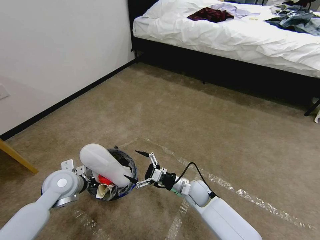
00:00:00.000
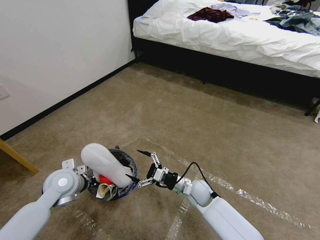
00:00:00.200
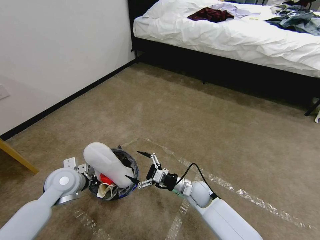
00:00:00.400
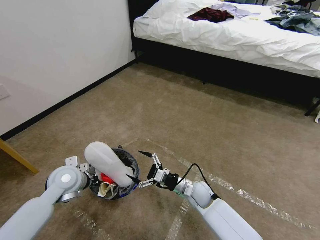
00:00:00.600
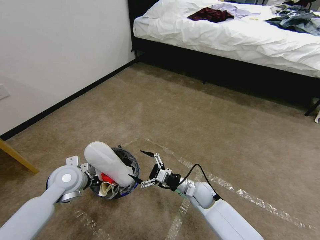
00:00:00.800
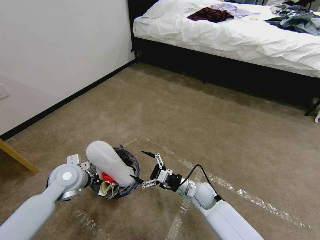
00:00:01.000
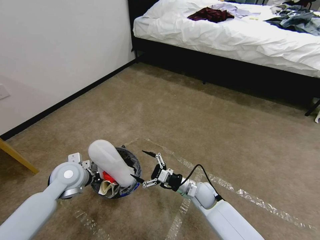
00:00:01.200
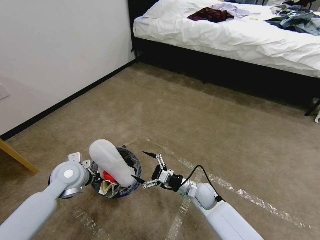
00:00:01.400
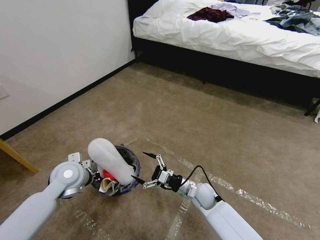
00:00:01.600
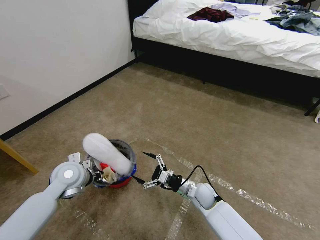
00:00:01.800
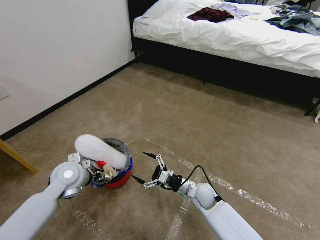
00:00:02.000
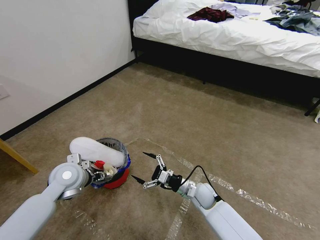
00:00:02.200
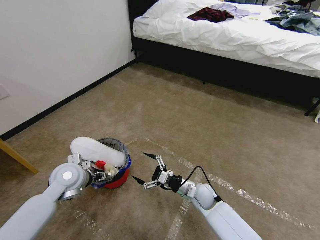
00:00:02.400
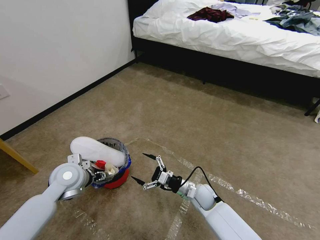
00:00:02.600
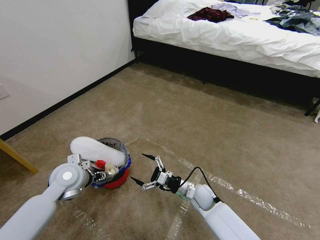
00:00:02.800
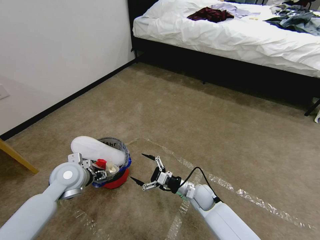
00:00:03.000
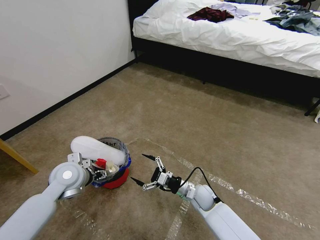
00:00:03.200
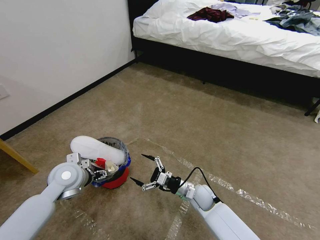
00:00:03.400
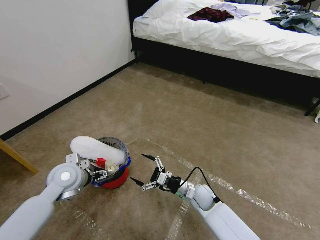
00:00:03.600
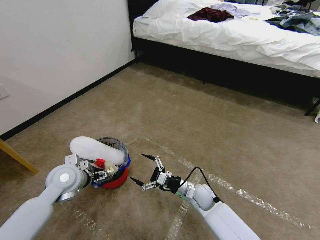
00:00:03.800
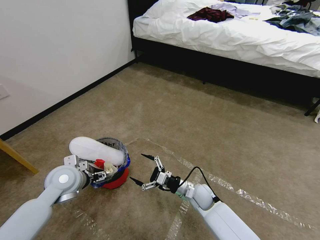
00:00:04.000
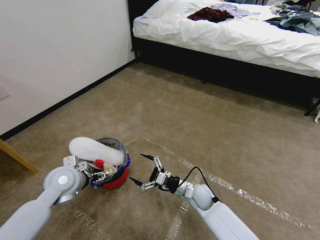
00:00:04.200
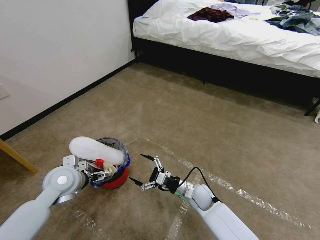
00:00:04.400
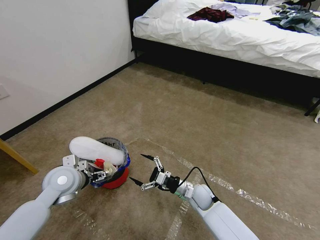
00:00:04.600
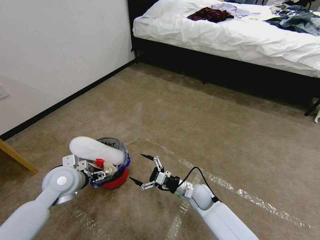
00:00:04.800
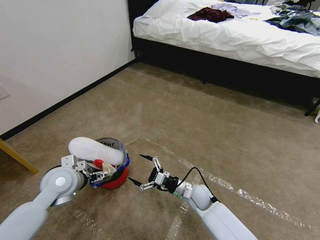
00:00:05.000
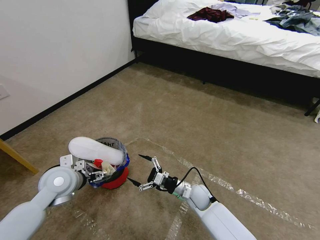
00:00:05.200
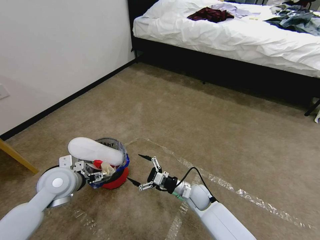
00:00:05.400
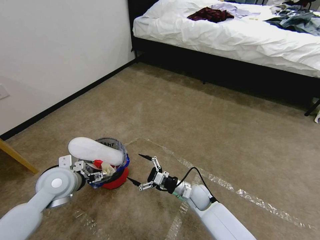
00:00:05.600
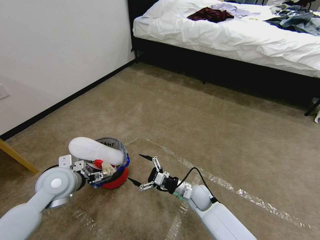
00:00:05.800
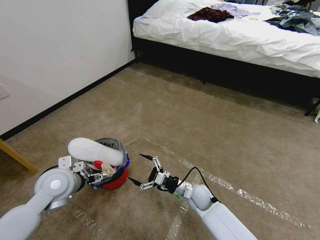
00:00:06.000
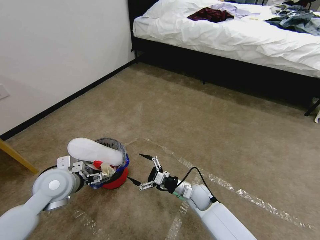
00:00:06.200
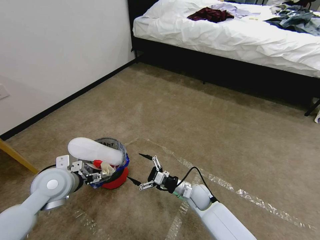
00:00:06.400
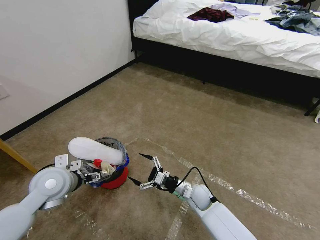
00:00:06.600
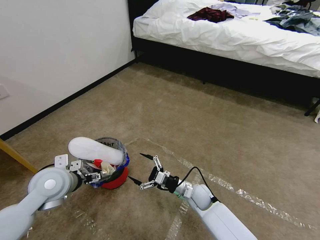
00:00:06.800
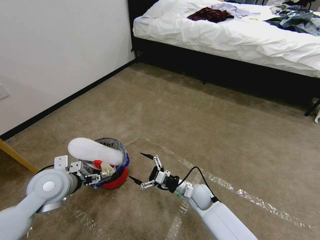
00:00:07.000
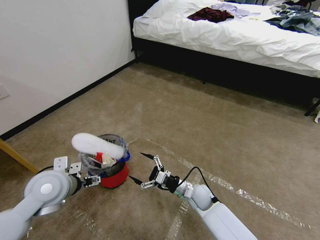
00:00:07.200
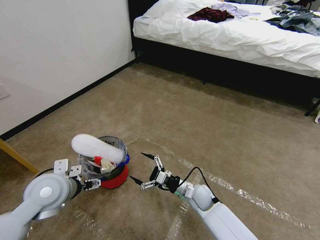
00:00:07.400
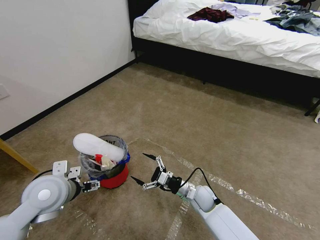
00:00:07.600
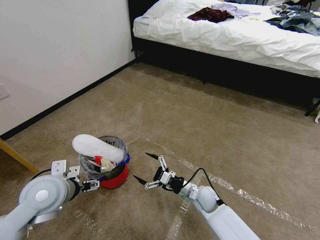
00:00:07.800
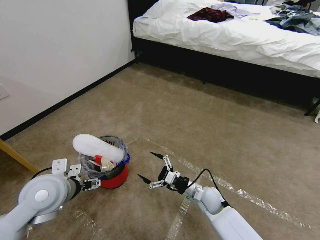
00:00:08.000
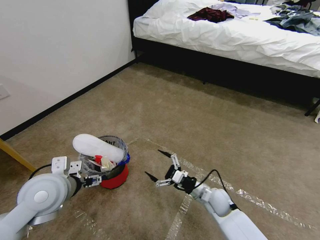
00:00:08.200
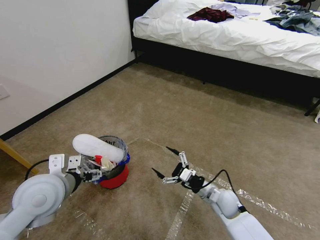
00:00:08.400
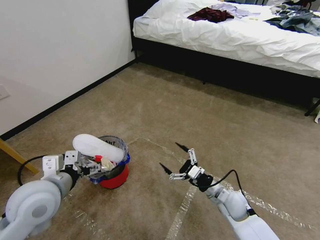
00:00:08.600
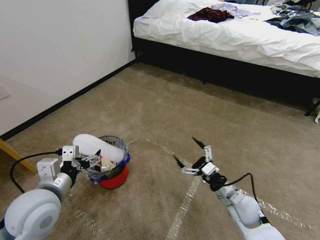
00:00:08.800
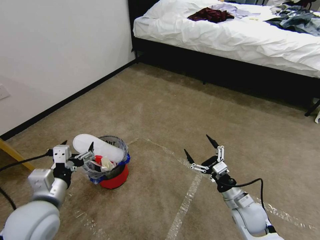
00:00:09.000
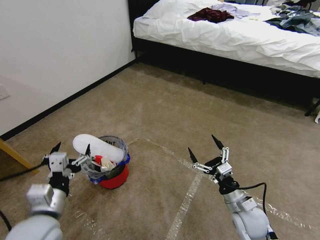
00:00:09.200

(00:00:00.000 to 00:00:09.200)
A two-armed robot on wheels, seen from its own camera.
Task of the whole recording: Pick up the trash bin and place the garbage on the floor into it.
00:00:00.000 - 00:00:01.600: The grippers make only small movements.
00:00:01.600 - 00:00:03.000: The left gripper opens.
00:00:03.000 - 00:00:06.200: The grippers move only a little.
00:00:06.200 - 00:00:07.600: There are only small adjustments of the grippers.
00:00:07.600 - 00:00:09.200: The left gripper travels backward by about 10 cm, while the right gripper heads to the right, backward and upward, covering roughly 15 cm.

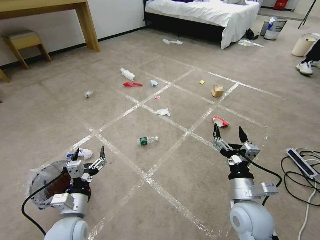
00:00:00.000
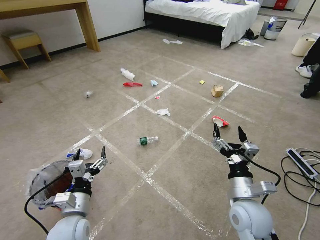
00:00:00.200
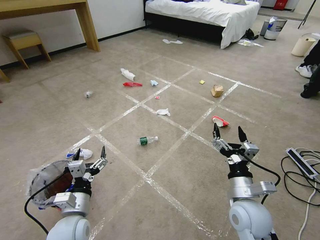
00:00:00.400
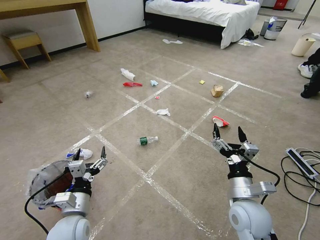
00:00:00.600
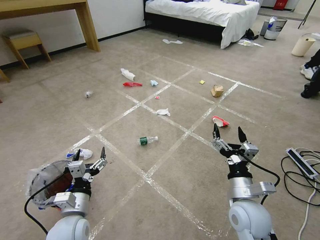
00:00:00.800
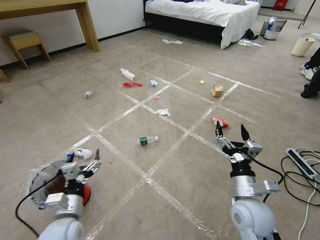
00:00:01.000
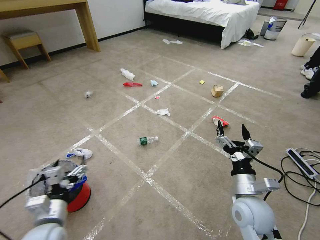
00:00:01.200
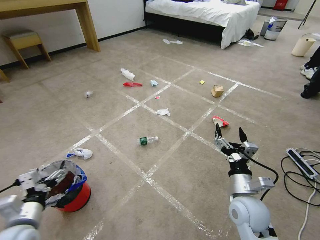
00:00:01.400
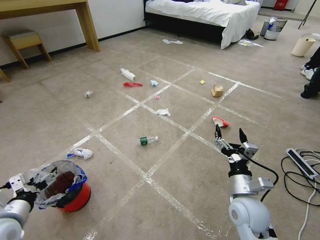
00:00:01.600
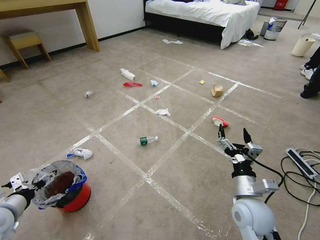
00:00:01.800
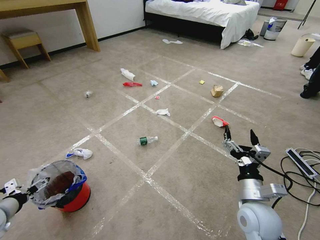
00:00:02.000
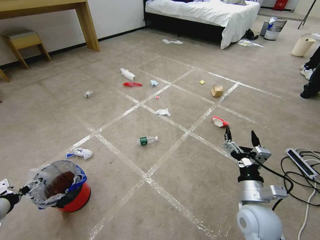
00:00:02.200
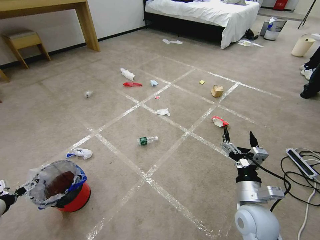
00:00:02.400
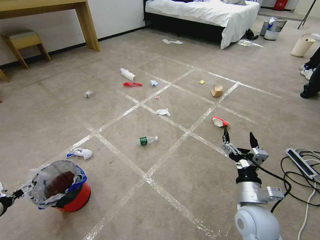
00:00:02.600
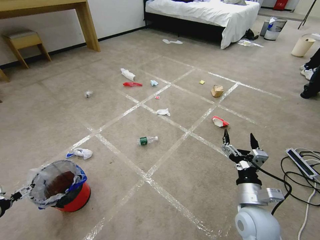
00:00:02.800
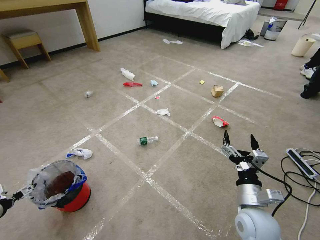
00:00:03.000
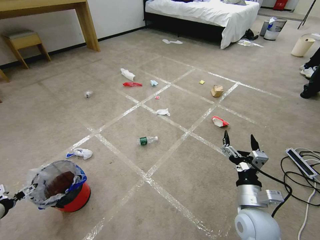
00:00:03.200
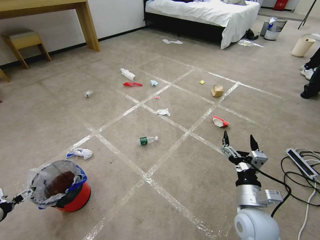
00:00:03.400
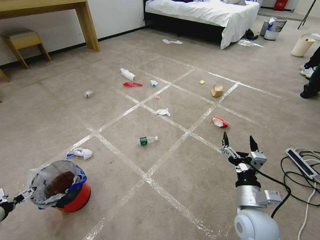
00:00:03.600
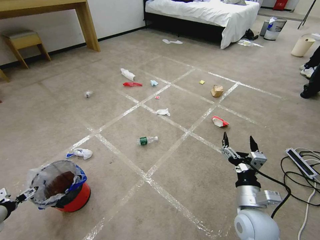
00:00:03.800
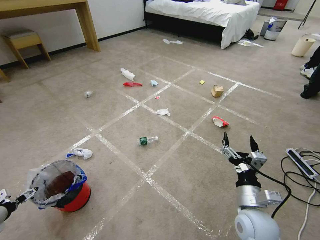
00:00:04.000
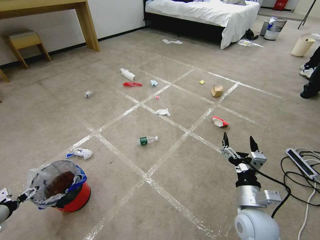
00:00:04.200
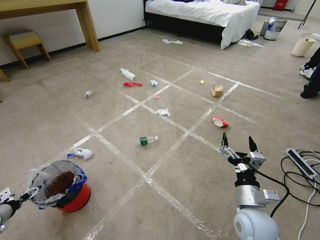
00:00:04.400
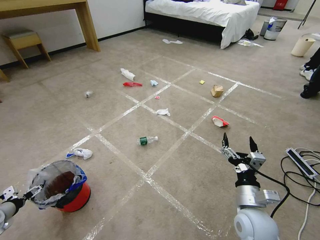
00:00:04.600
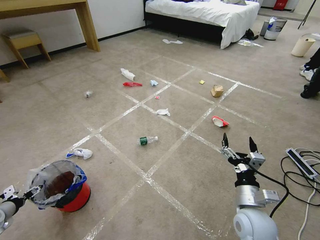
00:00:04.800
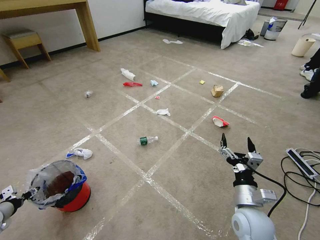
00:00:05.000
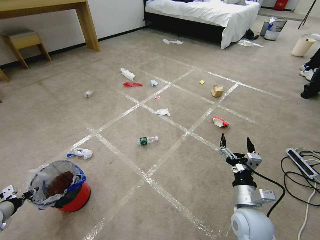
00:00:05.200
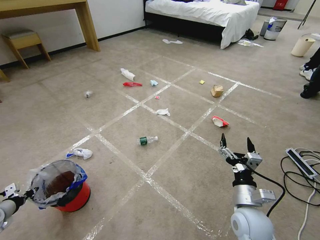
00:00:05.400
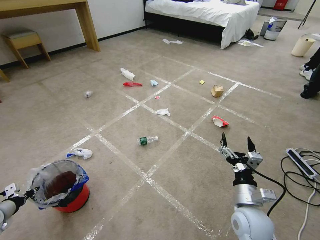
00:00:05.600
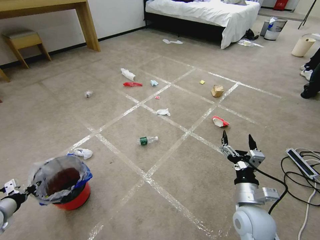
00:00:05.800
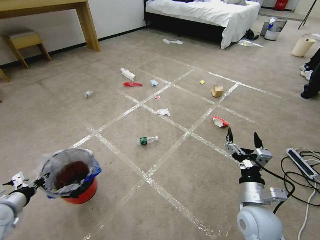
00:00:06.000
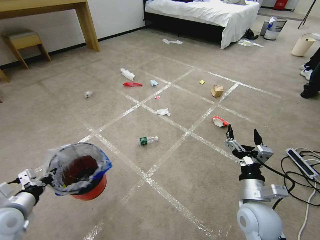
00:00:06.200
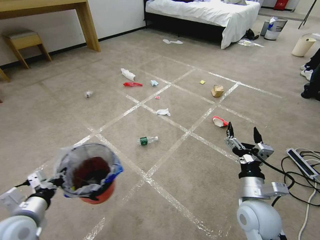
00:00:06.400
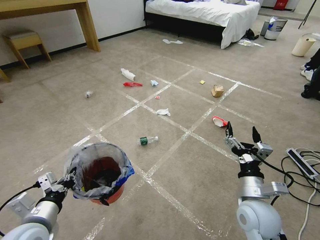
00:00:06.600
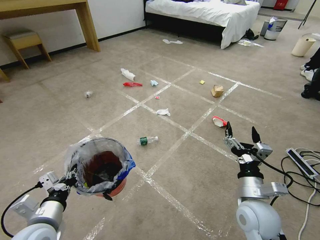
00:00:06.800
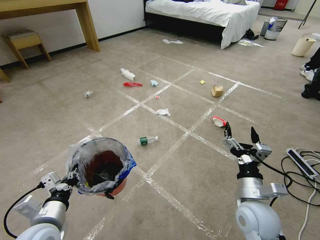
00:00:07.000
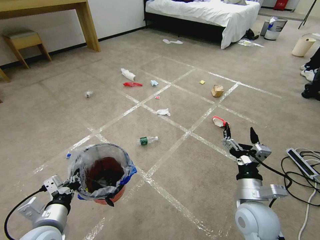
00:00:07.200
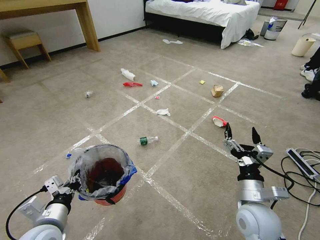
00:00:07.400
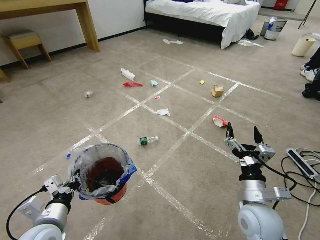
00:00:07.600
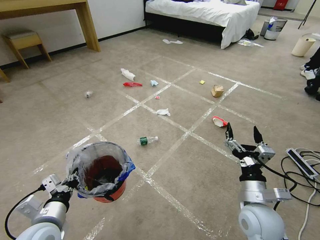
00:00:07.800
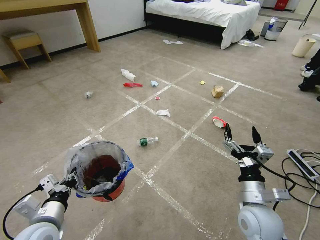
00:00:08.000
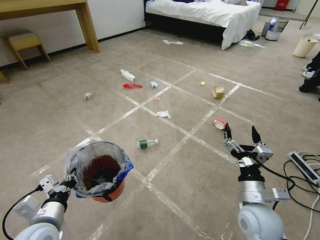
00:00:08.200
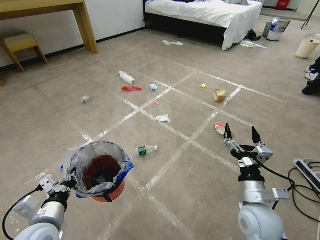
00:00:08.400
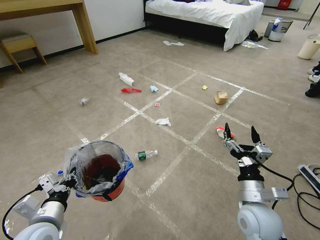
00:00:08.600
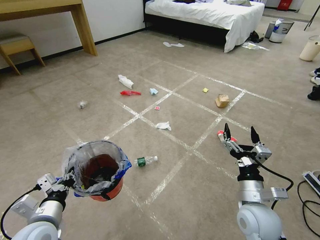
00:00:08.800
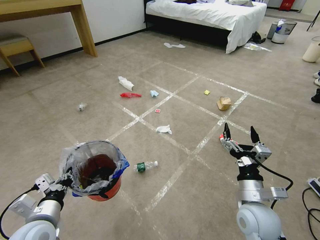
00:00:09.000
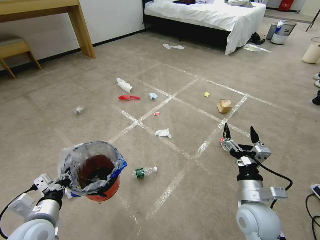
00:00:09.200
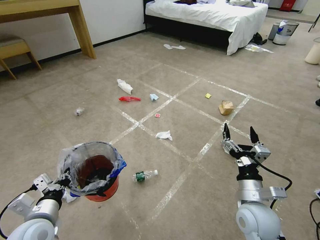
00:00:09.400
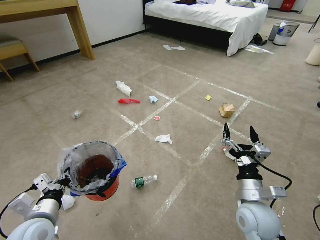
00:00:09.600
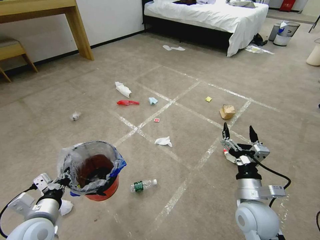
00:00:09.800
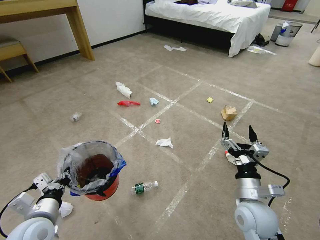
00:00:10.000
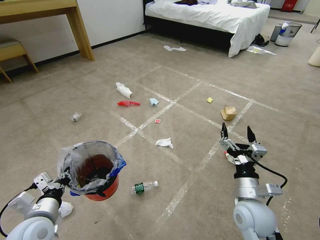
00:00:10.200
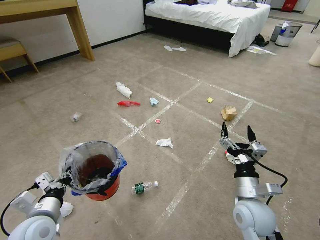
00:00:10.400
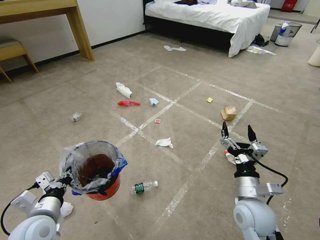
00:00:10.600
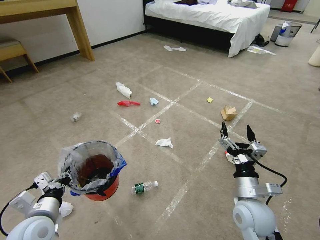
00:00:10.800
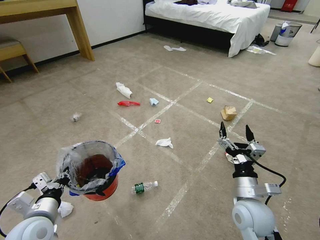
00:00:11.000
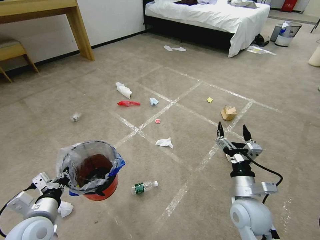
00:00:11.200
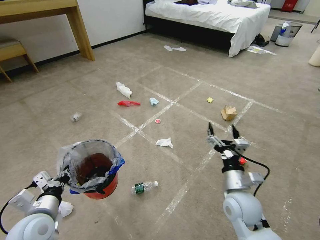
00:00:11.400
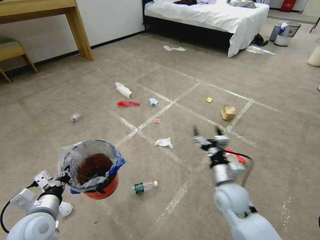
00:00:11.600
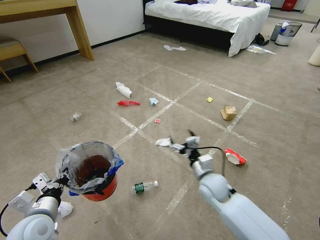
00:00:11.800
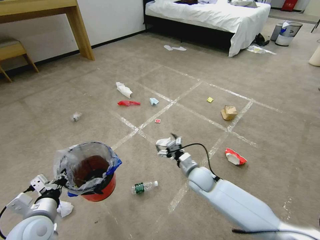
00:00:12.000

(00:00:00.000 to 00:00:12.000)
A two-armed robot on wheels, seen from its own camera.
Task of the whole recording: Pick up the trash bin and place the garbage on the floor into it.
00:00:01.600 - 00:00:03.000: The left gripper moves to the left and downward, roughly 20 cm.
00:00:03.000 - 00:00:04.400: The grippers stay close to where they were, moving slightly.
00:00:04.400 - 00:00:06.000: The left gripper shifts approximately 15 cm to the right and upward, and closes up.
00:00:06.000 - 00:00:07.600: The left gripper moves to the right, some 20 cm.
00:00:09.000 - 00:00:10.400: The grippers move only a little.
00:00:10.400 - 00:00:12.000: The right gripper goes some 20 cm forward, to the left and downward.

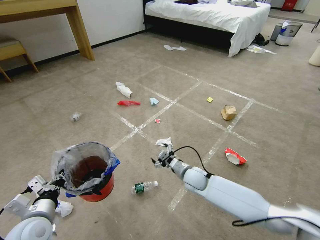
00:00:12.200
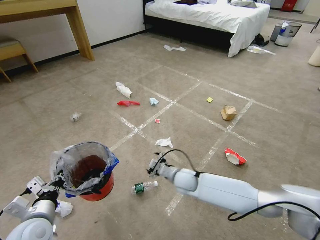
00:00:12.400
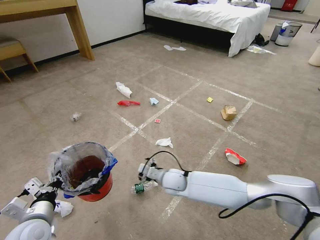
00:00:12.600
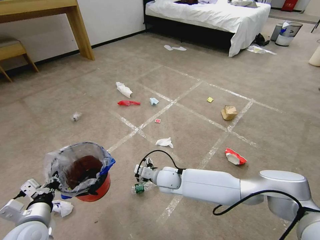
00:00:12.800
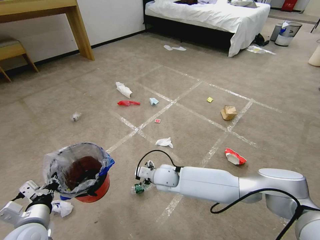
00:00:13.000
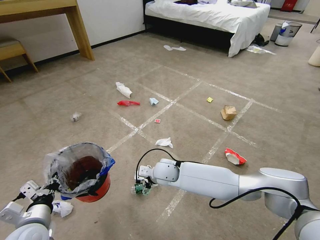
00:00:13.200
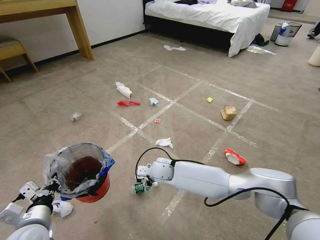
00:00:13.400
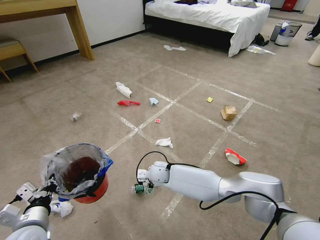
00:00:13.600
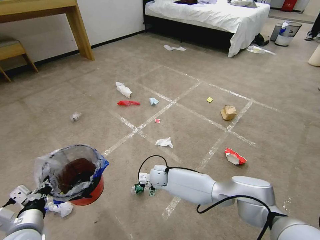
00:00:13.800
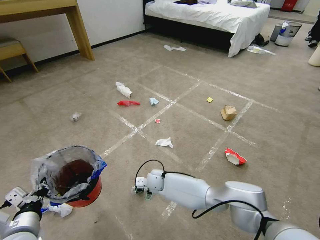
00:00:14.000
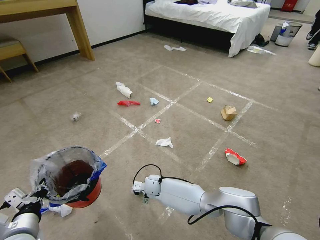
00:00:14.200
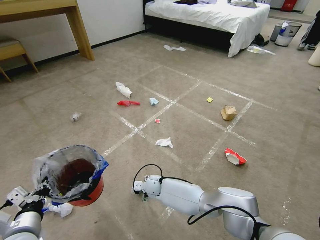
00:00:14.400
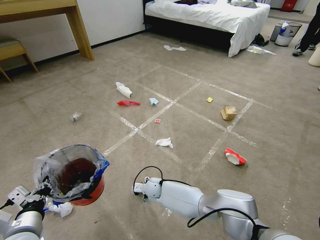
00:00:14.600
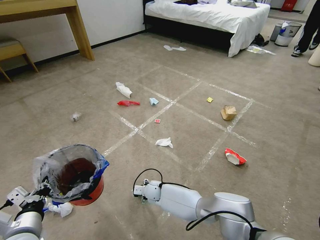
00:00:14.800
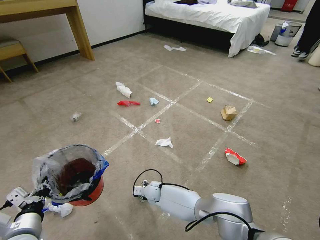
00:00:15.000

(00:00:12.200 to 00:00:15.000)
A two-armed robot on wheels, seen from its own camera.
Task of the whole recording: Pick up the trash bin and place the garbage on the floor into it.
00:00:12.200 - 00:00:13.600: The right gripper heads to the left, covering roughly 15 cm.
00:00:13.600 - 00:00:15.000: The right gripper shifts about 15 cm downward.
